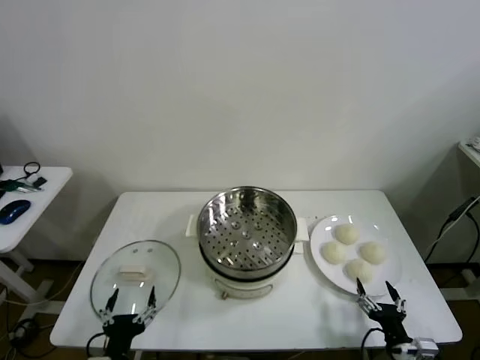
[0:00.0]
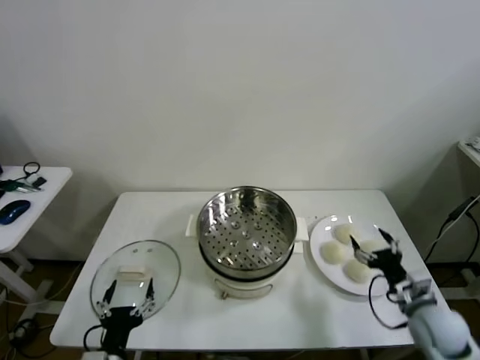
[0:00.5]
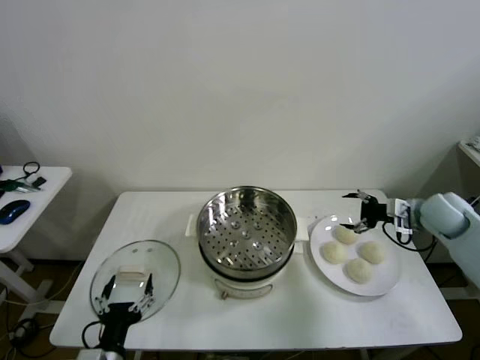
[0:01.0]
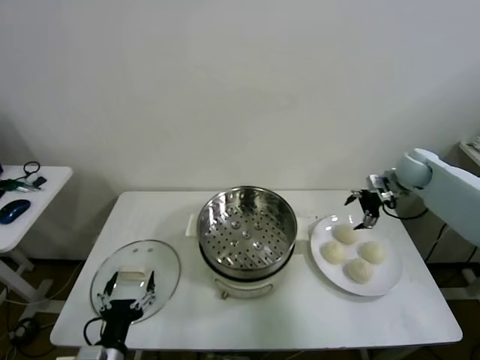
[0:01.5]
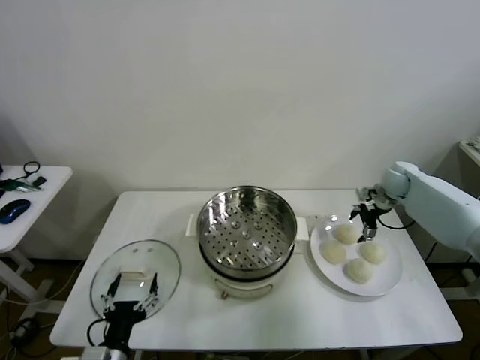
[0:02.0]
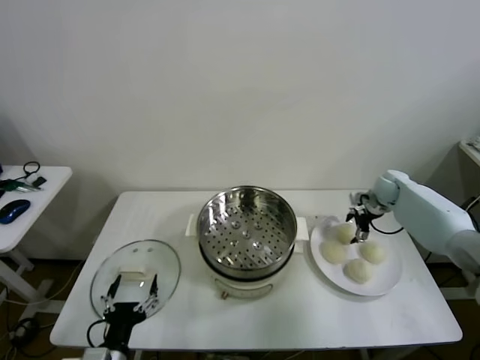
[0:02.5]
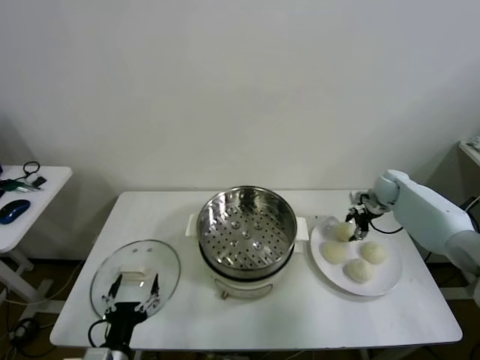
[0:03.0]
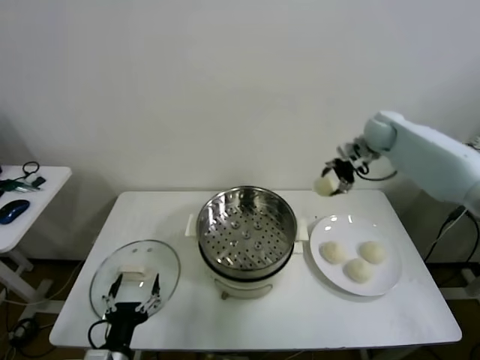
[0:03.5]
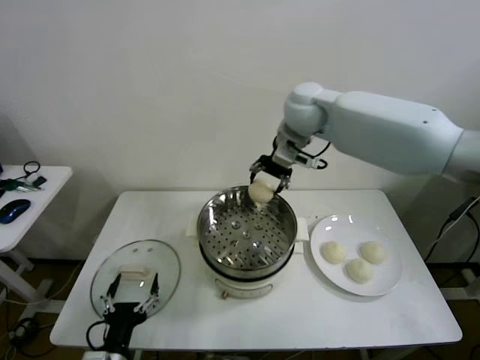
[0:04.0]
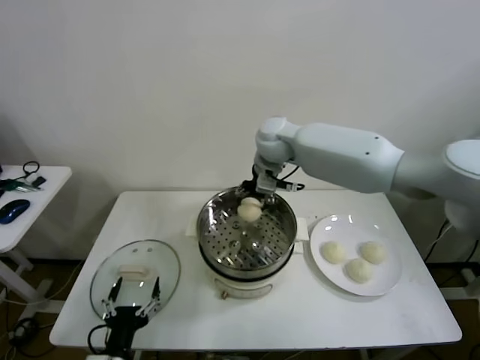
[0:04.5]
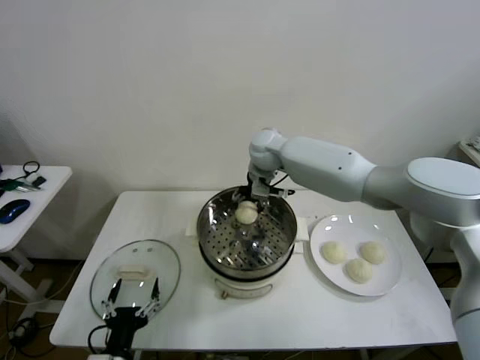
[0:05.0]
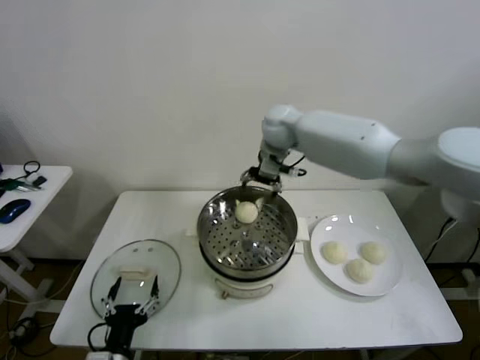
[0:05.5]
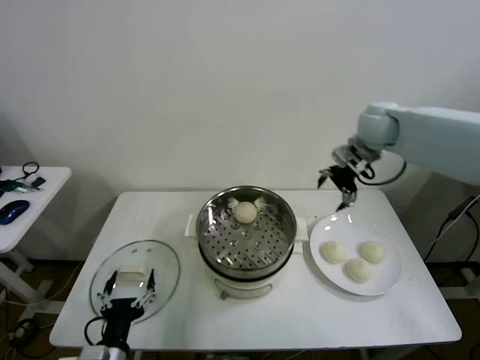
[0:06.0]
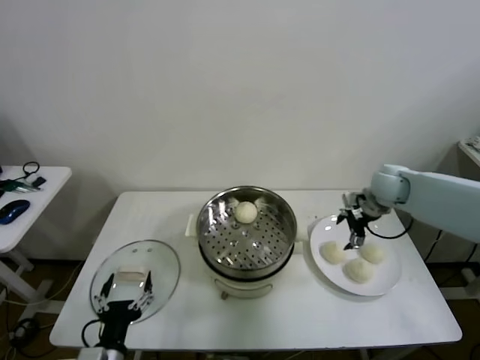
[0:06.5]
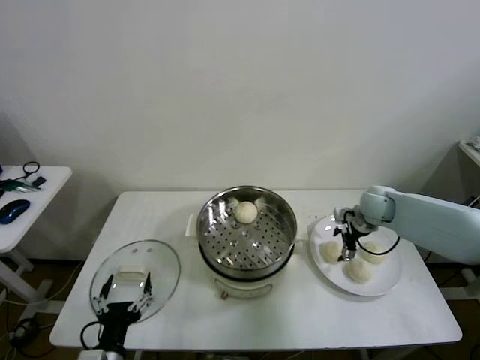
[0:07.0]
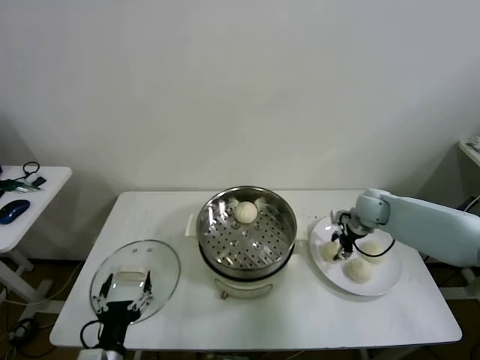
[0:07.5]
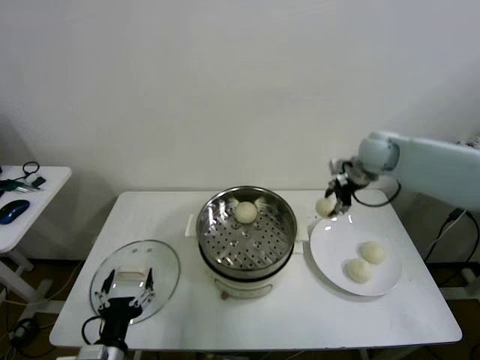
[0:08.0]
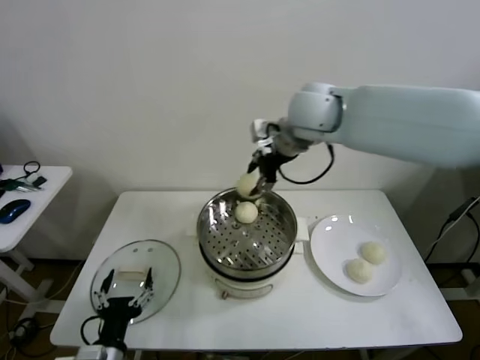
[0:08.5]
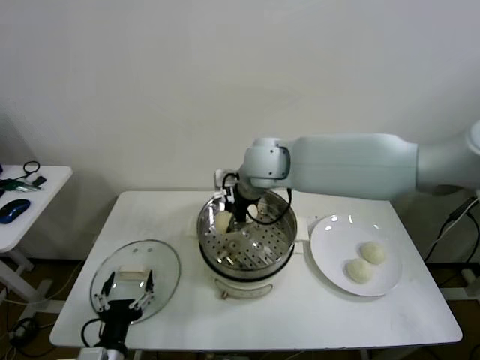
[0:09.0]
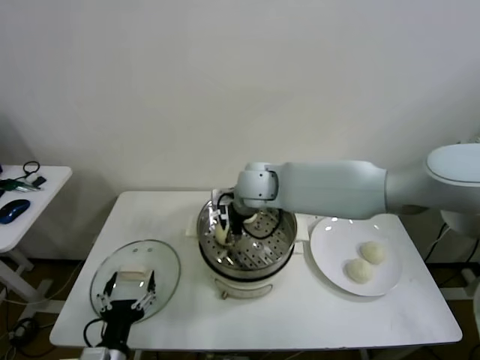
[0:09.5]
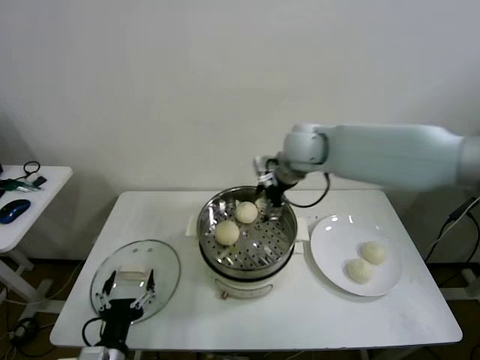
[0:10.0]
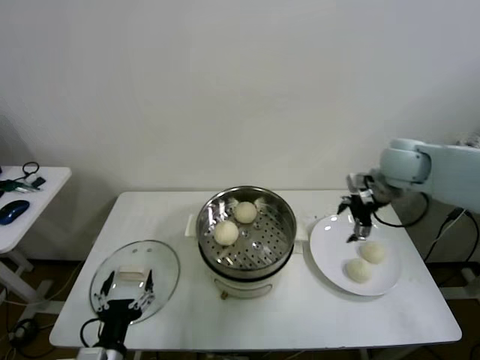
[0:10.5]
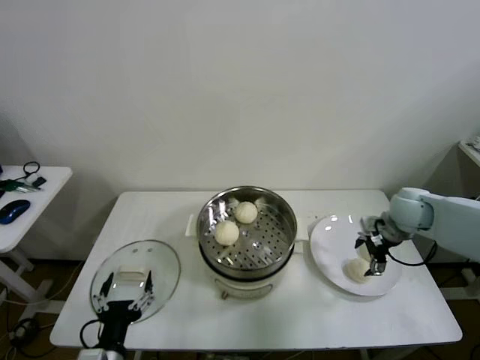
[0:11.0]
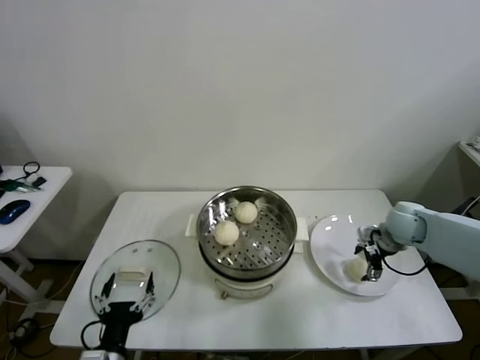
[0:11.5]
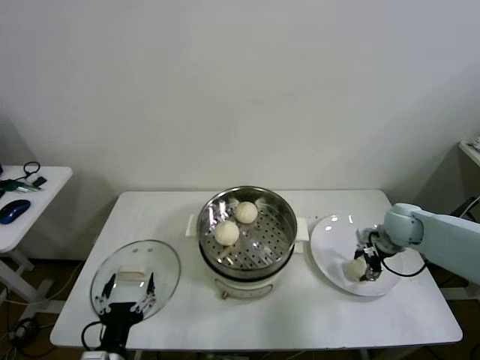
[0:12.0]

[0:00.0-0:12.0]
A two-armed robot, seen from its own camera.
Step, 0:00.0 to 0:02.5: Grasp the baozi in the plate with right gripper.
Step, 0:03.0 to 0:05.0: Place the baozi on the steamer with right gripper.
Step, 0:05.5 to 0:07.0: Grasp the baozi in the plate with right gripper.
Step, 0:07.5 to 0:09.5: Place the baozi on the steamer with right gripper.
0:02.0 to 0:04.0: The right gripper goes approximately 40 cm to the left and upward, and closes its fingers.
0:04.0 to 0:06.0: The right gripper heads to the right, covering approximately 20 cm, and opens up.
0:06.0 to 0:08.0: The right gripper reaches approximately 20 cm downward, then returns, and closes its fingers.
0:08.0 to 0:10.0: The right gripper travels to the left by approximately 15 cm, and opens.
0:10.0 to 0:12.0: The right gripper travels to the right and downward by approximately 30 cm, and closes its fingers.

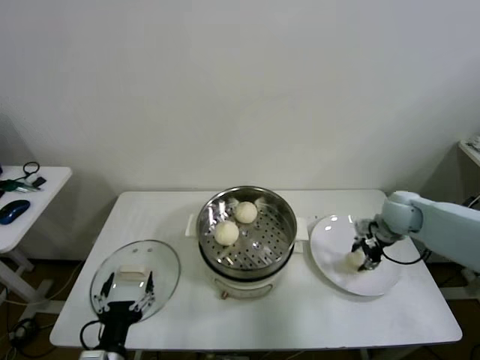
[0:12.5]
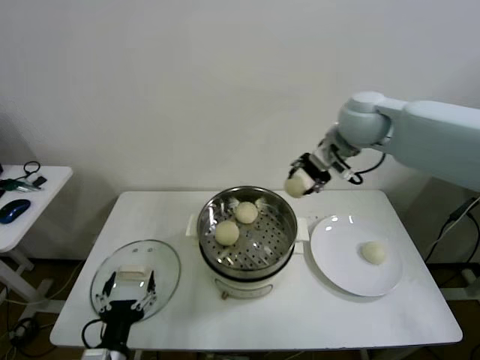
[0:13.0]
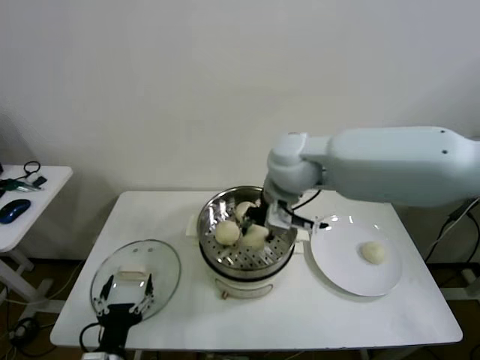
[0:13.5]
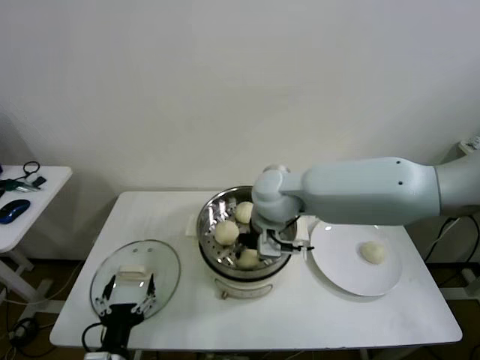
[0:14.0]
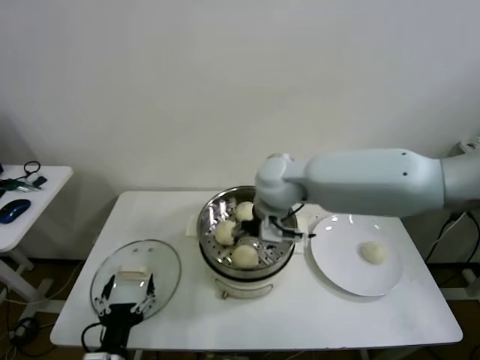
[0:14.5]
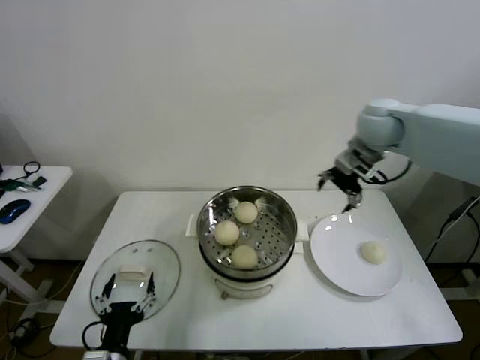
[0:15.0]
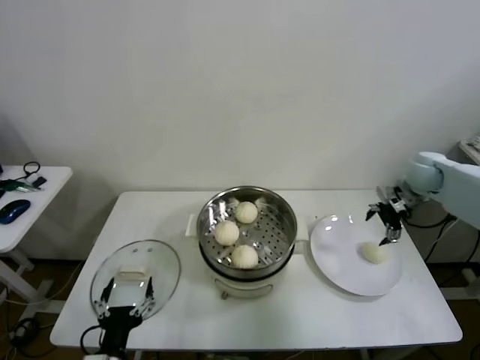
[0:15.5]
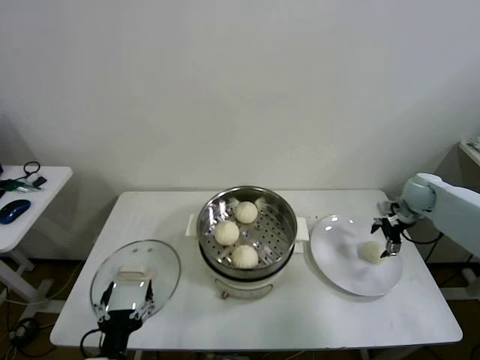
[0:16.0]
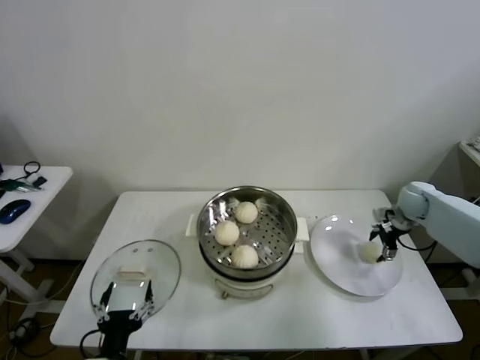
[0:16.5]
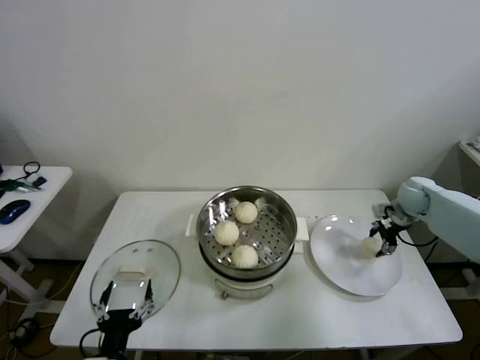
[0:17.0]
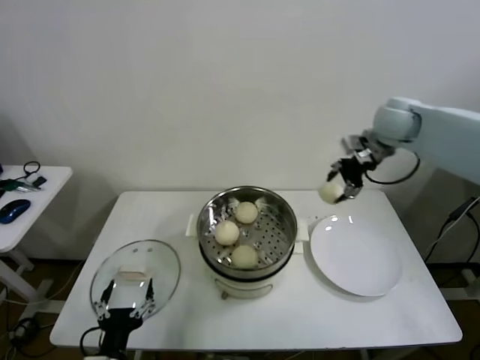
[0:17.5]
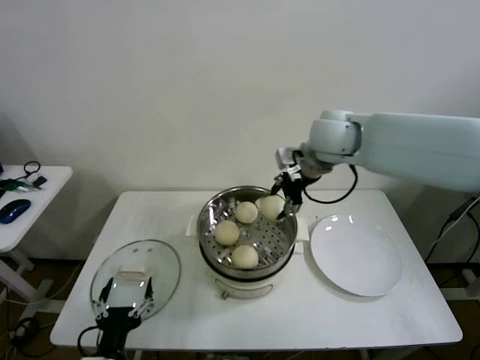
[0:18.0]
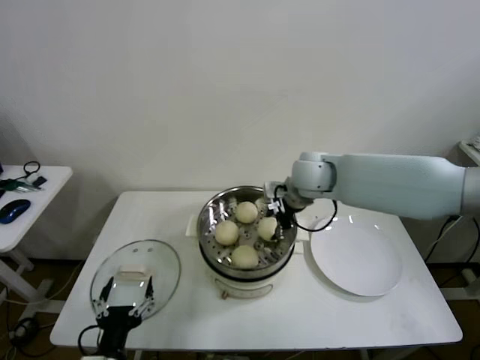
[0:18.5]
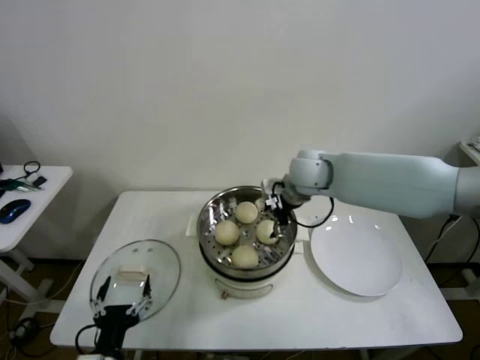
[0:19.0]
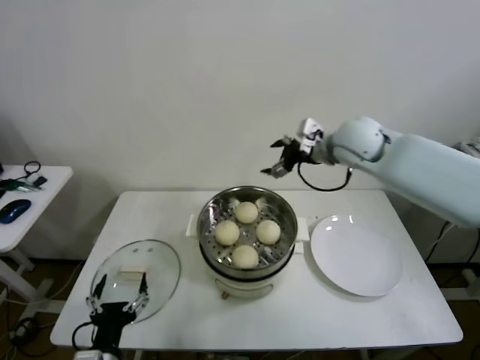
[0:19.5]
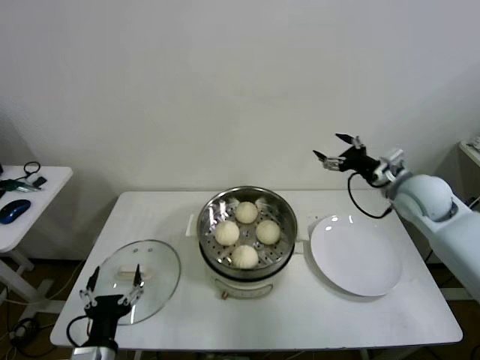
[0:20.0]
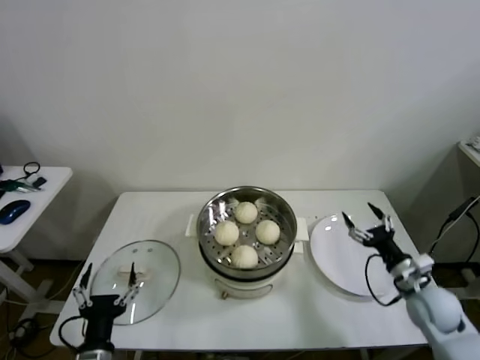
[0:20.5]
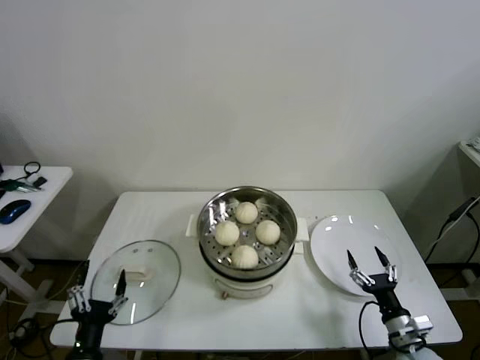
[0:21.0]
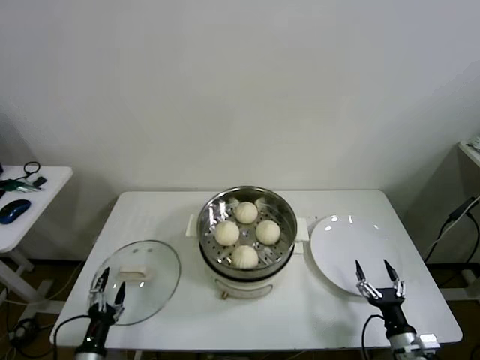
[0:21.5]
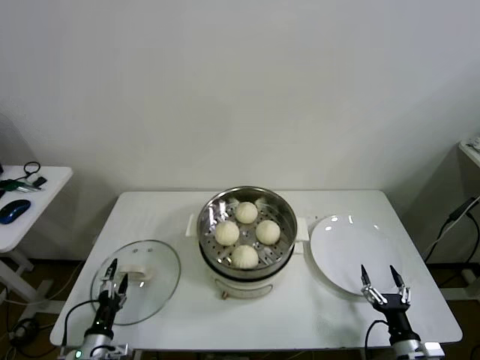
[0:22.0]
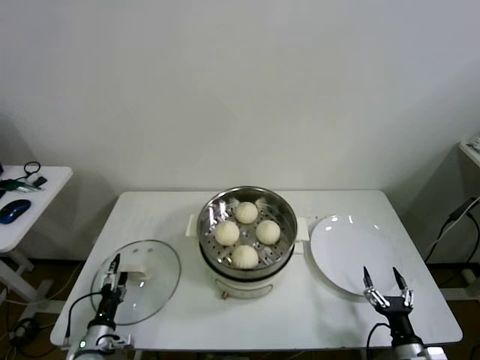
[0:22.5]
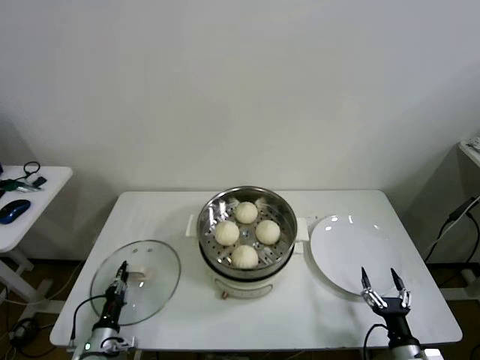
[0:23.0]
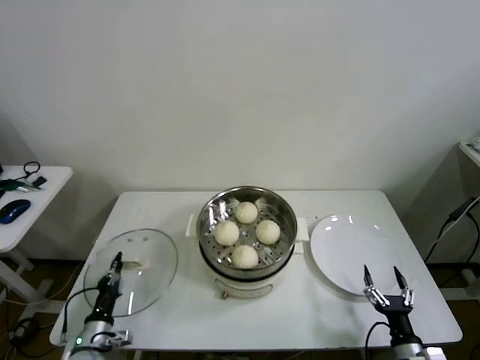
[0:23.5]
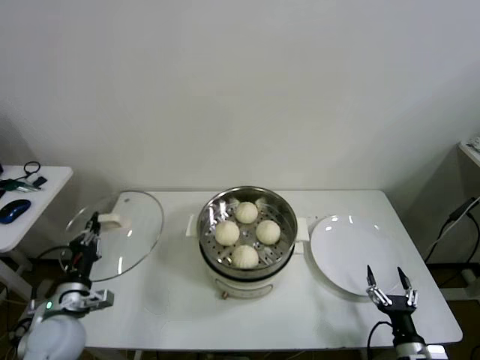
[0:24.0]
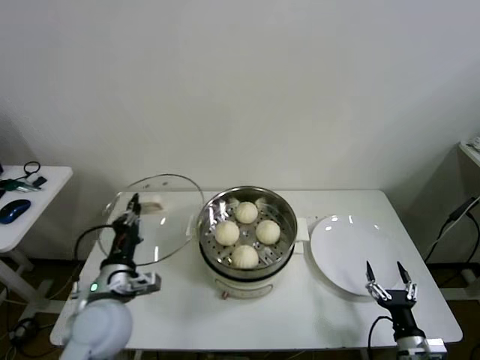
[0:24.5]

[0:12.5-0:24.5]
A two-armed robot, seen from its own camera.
Step, 0:12.5 to 0:14.0: Place the baozi on the steamer with right gripper.
Step, 0:14.5 to 0:16.5: Grasp the baozi in the plate with right gripper.
Step, 0:17.0 to 0:18.5: Place the baozi on the steamer with right gripper.
Step, 0:19.0 to 0:23.0: Grasp the pot lid with left gripper.
0:12.5 to 0:14.5: The right gripper goes roughly 30 cm to the left and upward, and opens its fingers.
0:14.5 to 0:16.5: The right gripper goes roughly 40 cm to the right and downward.
0:16.5 to 0:18.5: The right gripper moves to the left and upward, roughly 35 cm, and closes up.
0:18.5 to 0:20.5: The right gripper goes approximately 40 cm to the right, downward and backward, and opens.
0:20.5 to 0:22.5: The left gripper heads downward, to the left and forward, covering approximately 20 cm; the right gripper goes approximately 20 cm backward and downward.
0:22.5 to 0:24.5: The left gripper heads upward and to the right, covering roughly 25 cm, and closes up.

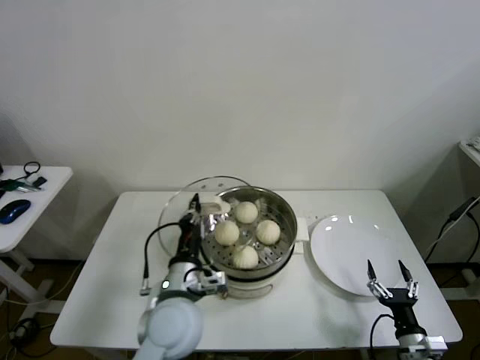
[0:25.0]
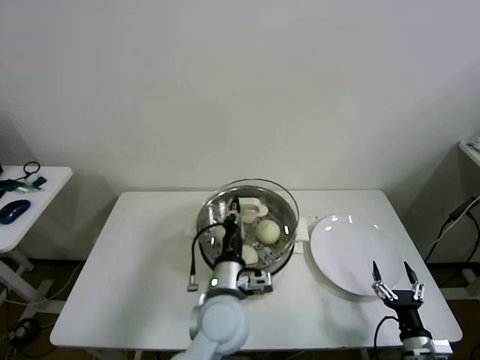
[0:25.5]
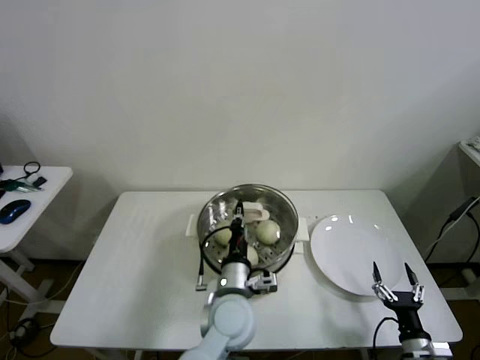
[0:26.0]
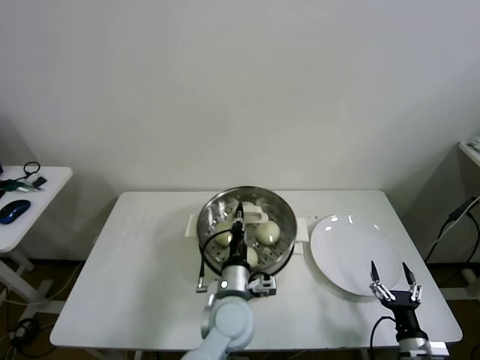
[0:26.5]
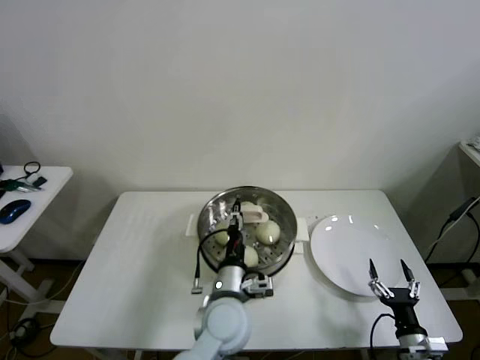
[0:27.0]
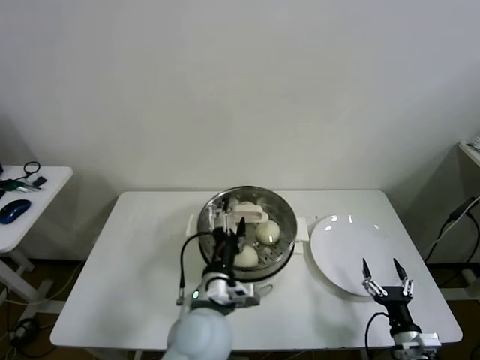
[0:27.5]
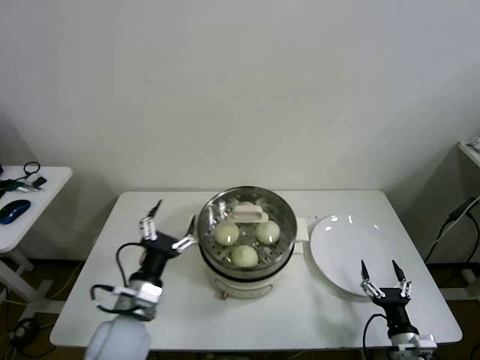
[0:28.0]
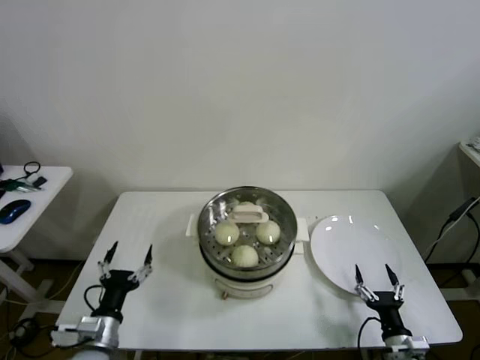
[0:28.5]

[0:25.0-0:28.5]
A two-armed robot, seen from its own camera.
0:25.0 to 0:27.0: The left gripper is displaced to the right by roughly 10 cm, and opens its fingers.
0:27.0 to 0:28.5: The left gripper shifts some 25 cm to the left, and opens up.
